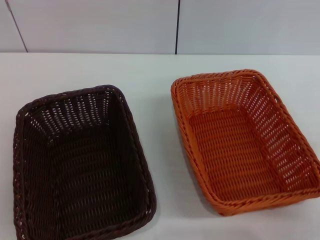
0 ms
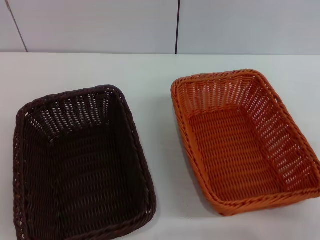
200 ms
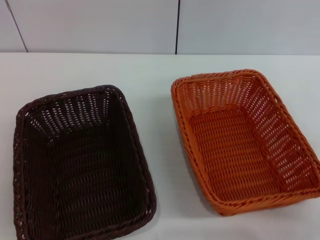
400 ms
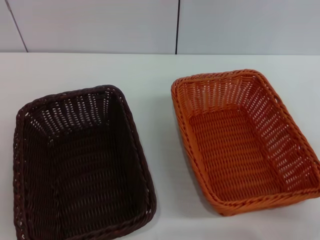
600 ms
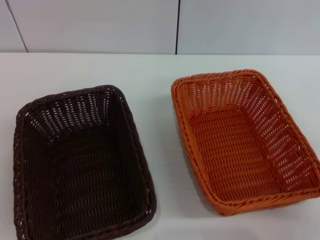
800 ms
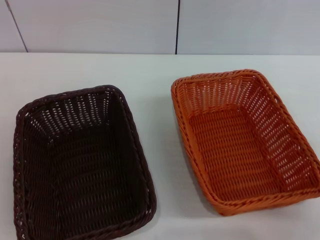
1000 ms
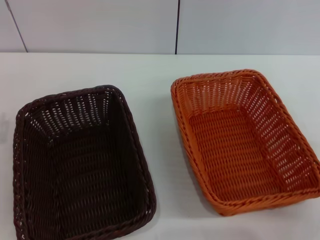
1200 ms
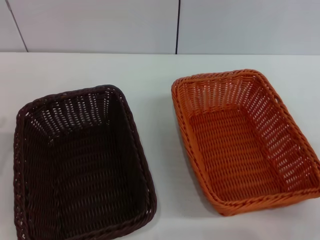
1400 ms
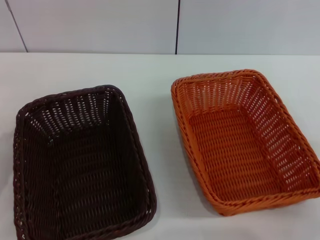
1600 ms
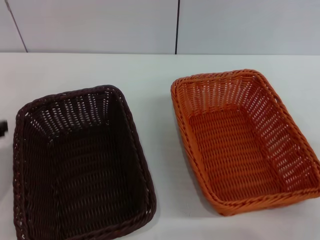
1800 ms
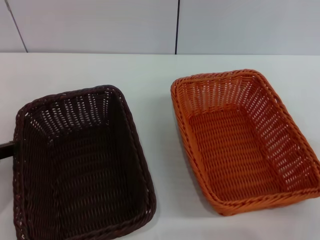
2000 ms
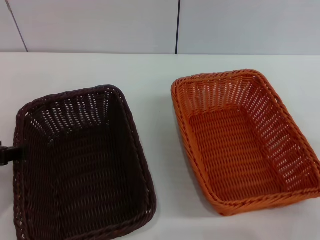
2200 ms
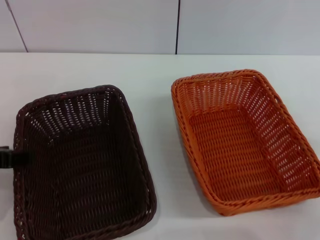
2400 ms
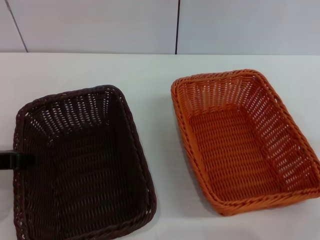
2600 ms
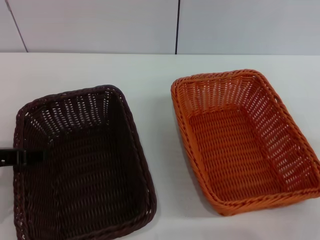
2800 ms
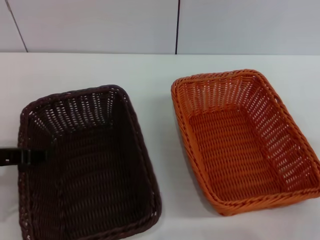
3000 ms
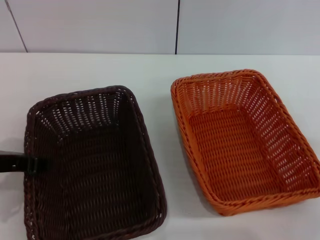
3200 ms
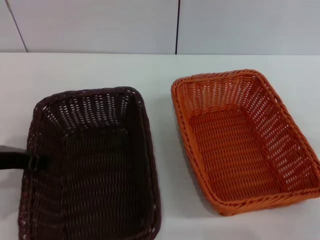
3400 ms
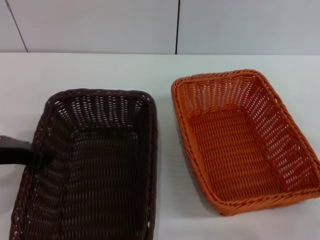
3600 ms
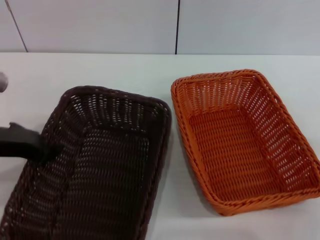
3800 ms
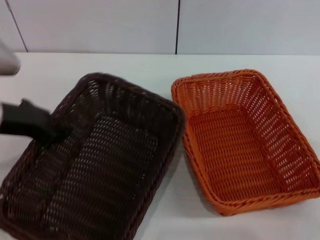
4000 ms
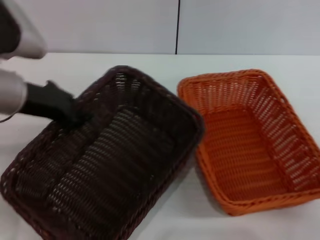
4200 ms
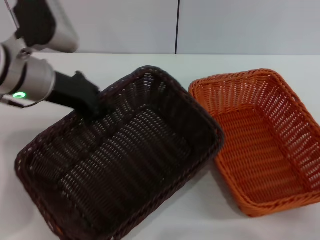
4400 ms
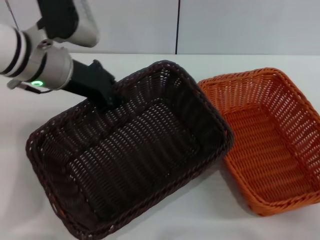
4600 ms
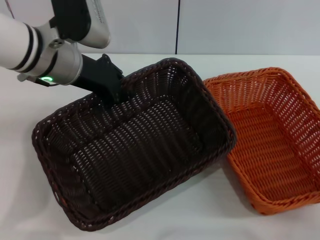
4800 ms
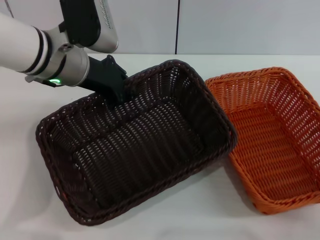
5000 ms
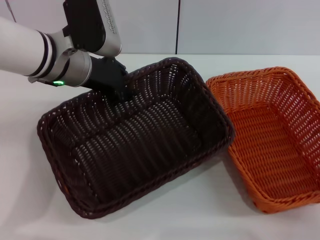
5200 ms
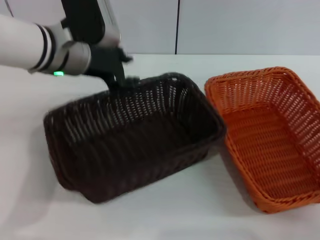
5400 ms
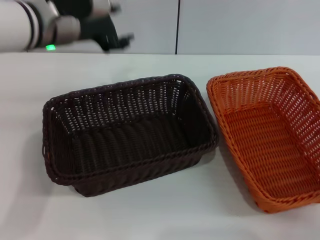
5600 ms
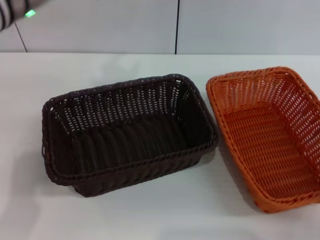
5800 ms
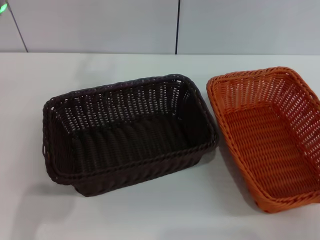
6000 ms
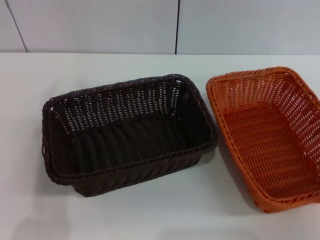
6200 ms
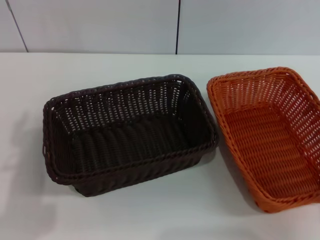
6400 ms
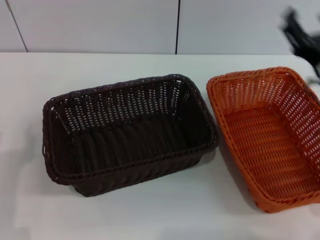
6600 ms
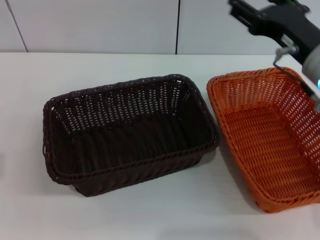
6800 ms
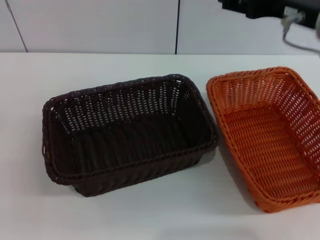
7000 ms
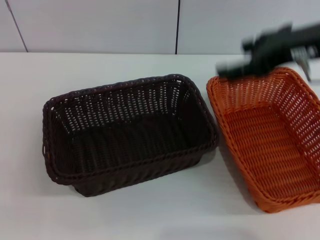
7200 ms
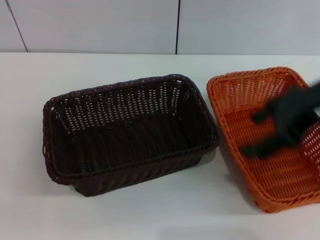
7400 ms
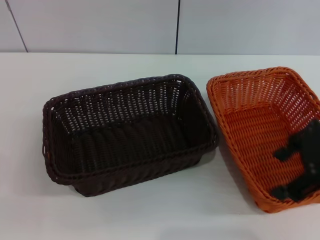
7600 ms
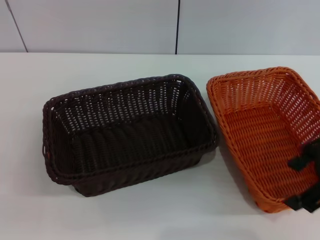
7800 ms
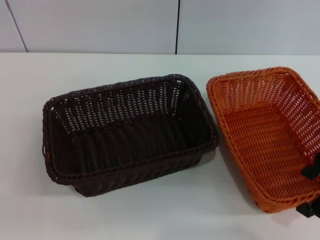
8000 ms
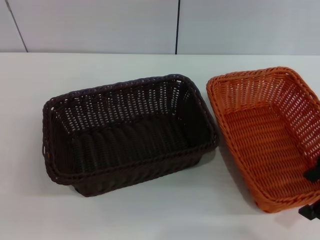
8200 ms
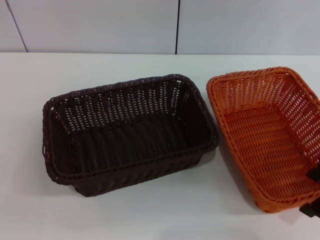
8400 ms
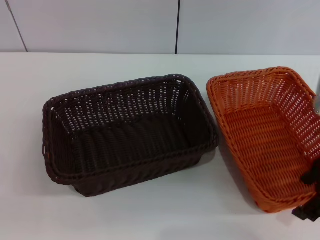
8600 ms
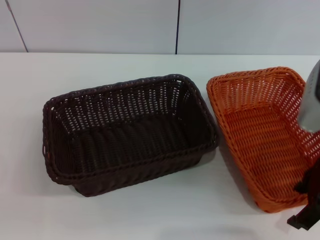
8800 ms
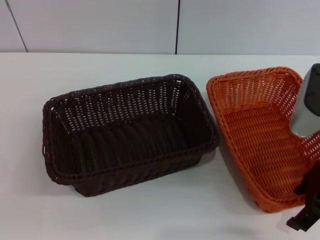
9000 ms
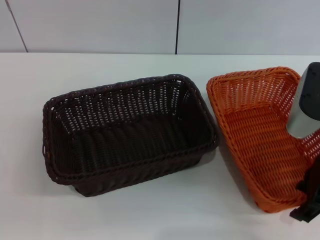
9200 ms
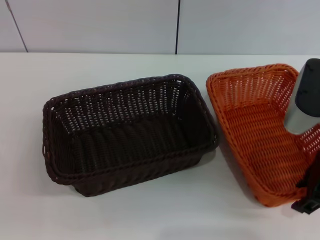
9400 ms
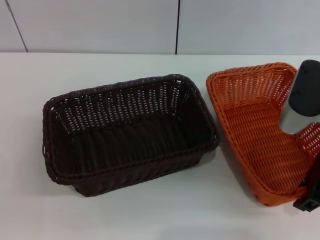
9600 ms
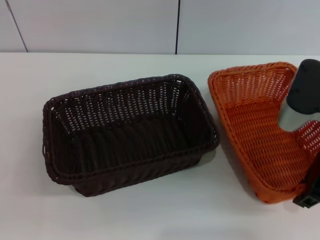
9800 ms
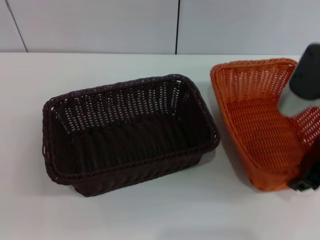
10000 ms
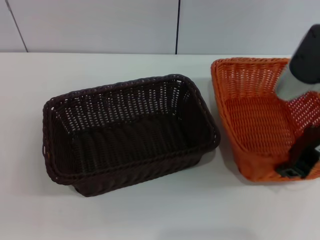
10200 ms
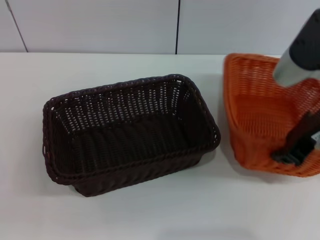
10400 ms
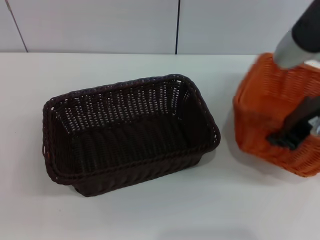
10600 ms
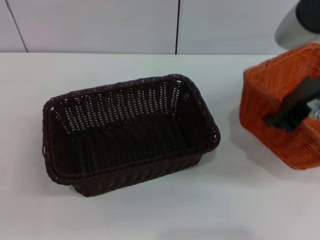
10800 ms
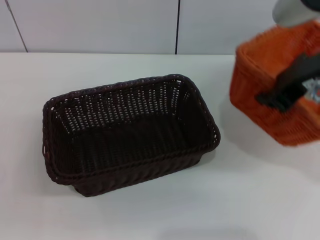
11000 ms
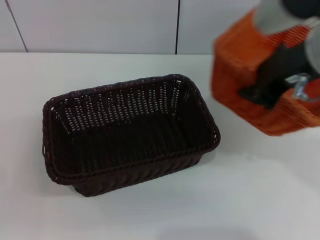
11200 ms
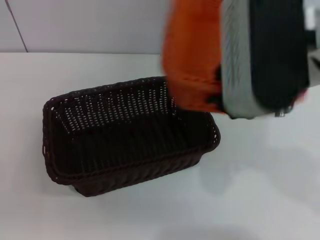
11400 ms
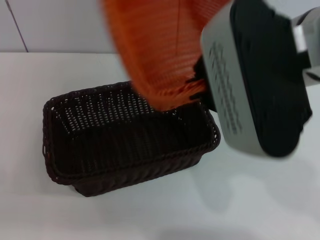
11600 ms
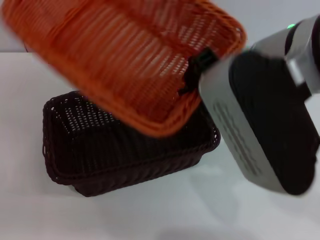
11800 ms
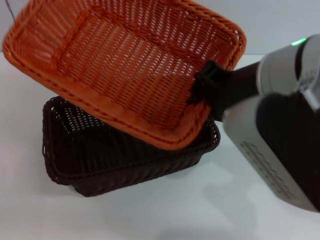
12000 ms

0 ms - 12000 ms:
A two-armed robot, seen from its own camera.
Step, 0 ms - 3600 ms: Pick up the dark basket with the left gripper.
Step, 3800 ms - 5400 ms: Place the dark basket in the center of view with the left gripper.
Step, 5600 ms - 10400 ms: Pick up the light basket with the right gripper.
1600 ms - 3000 ms: The left gripper moves roughly 5 cm.
3000 ms - 4400 ms: The left gripper moves forward and to the right, approximately 15 cm, and closes its fingers.
4400 ms - 6000 ms: The left gripper travels upward by roughly 5 cm, and opens up.
6000 ms - 7600 ms: The right gripper moves upward, roughly 20 cm.
7600 ms - 9000 ms: The right gripper shifts some 10 cm downward.
9000 ms - 10400 ms: The right gripper changes place by some 5 cm, and closes.
10400 ms - 12000 ms: The right gripper moves to the left and upward, approximately 10 cm.

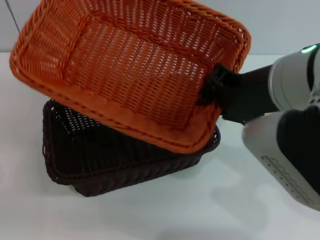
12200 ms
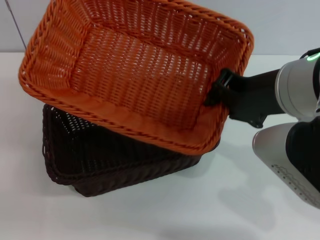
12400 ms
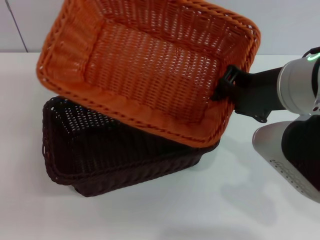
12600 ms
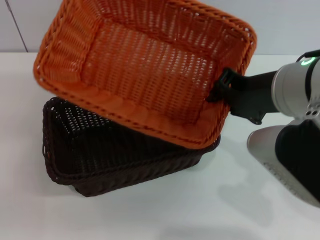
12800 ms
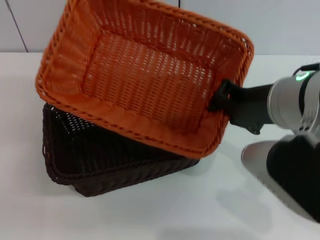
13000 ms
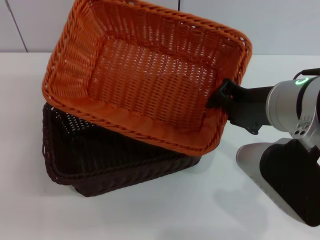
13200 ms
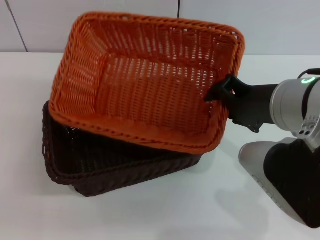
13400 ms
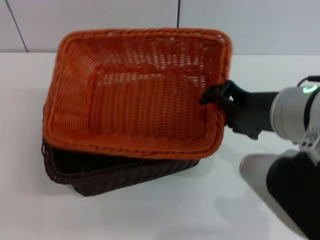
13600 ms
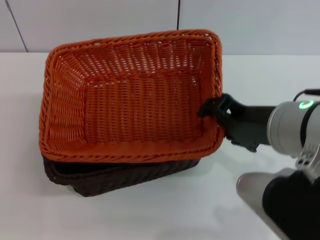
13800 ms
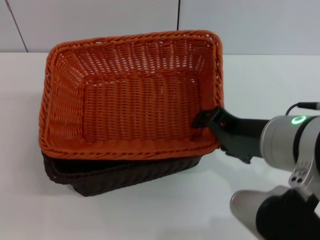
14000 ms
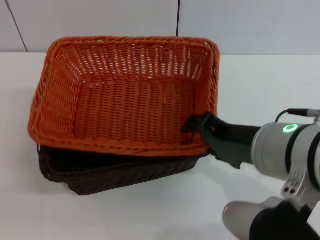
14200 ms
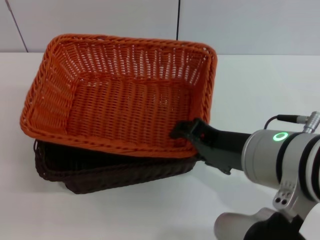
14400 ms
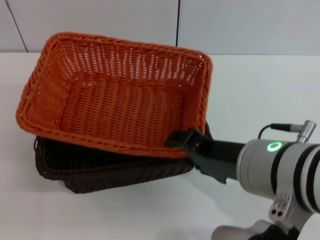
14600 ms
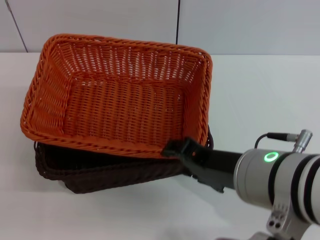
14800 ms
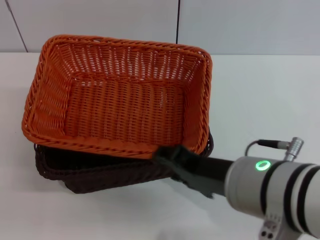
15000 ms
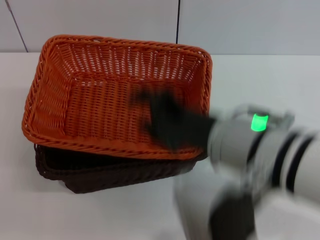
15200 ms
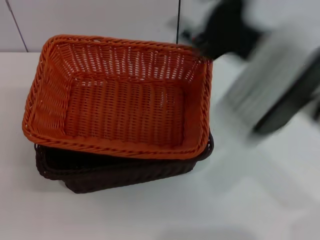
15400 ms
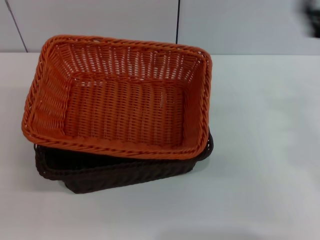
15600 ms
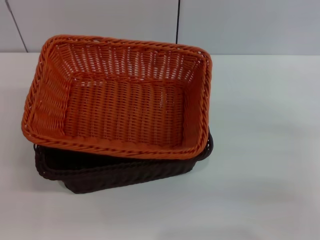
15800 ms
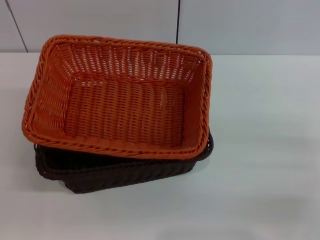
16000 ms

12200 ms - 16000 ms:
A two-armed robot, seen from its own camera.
Step, 12200 ms - 14800 ms: Place the light basket on the dark basket with the right gripper.
13400 ms - 14800 ms: The right gripper goes some 5 cm backward, and opens its fingers.
14800 ms - 16000 ms: The right gripper goes about 25 cm to the right and downward.
